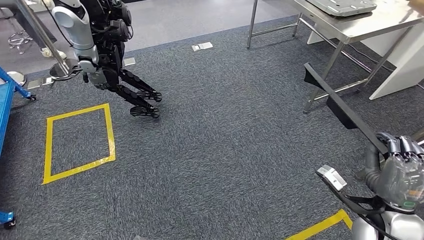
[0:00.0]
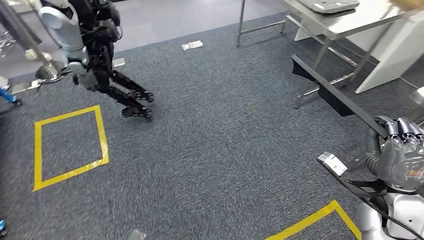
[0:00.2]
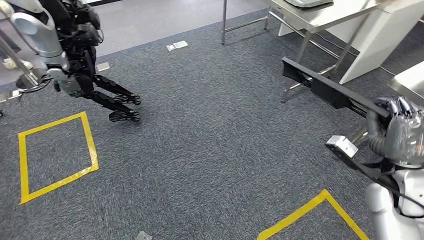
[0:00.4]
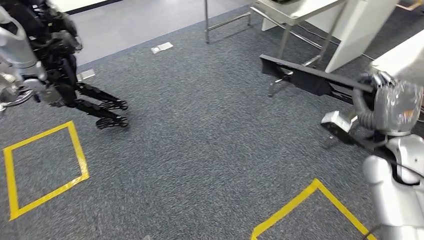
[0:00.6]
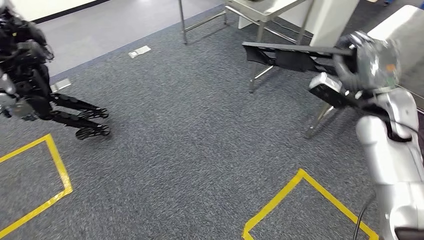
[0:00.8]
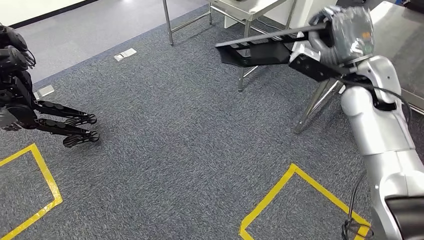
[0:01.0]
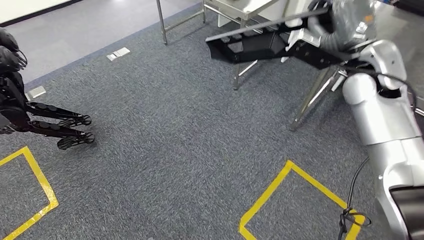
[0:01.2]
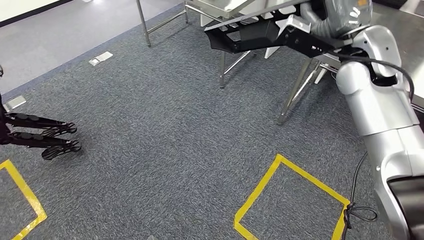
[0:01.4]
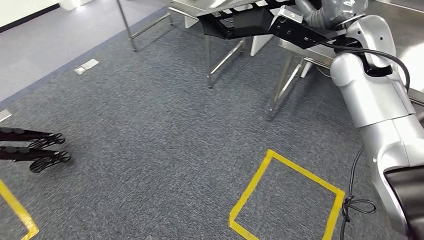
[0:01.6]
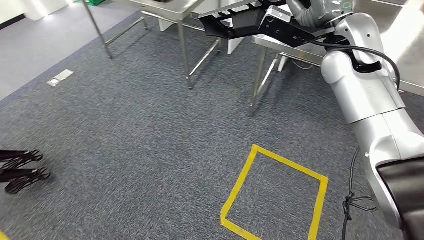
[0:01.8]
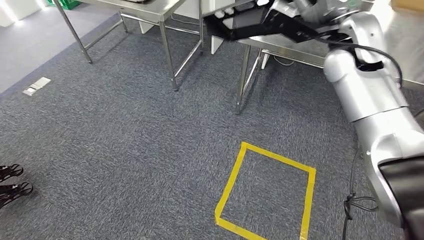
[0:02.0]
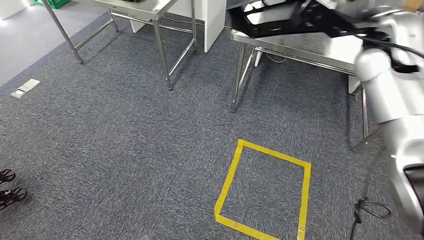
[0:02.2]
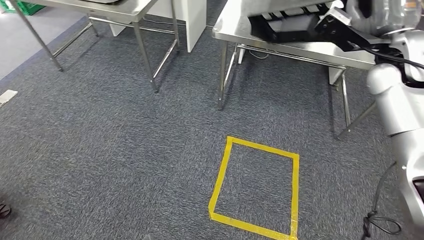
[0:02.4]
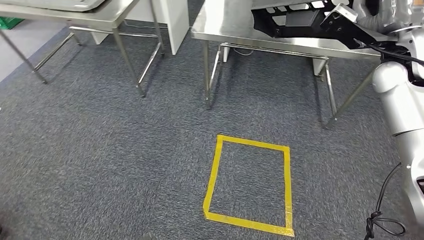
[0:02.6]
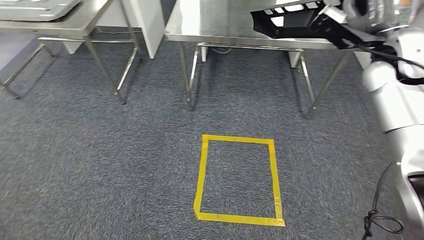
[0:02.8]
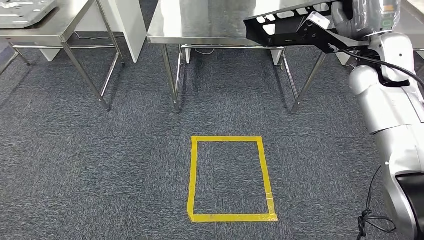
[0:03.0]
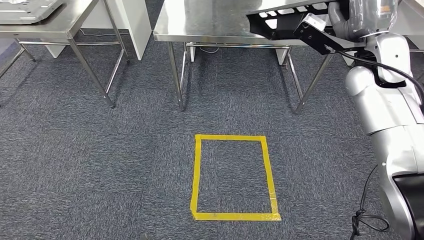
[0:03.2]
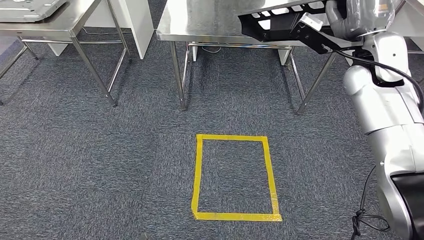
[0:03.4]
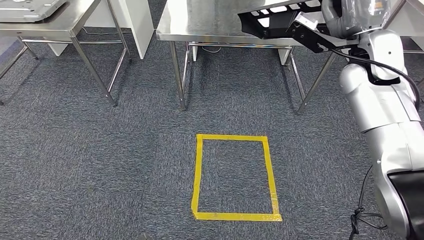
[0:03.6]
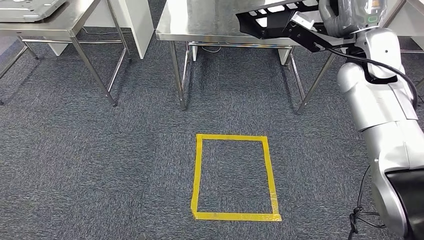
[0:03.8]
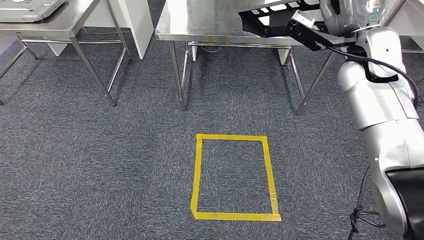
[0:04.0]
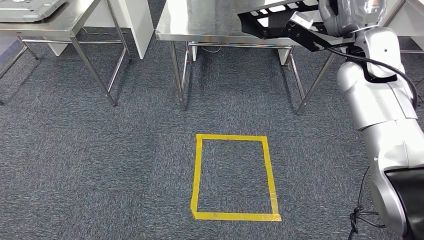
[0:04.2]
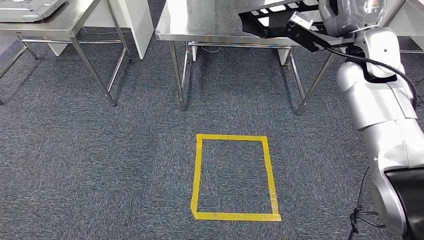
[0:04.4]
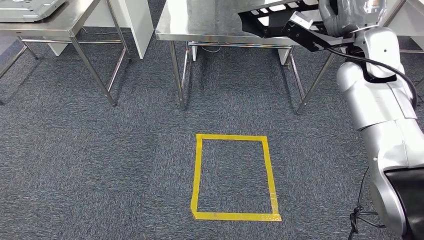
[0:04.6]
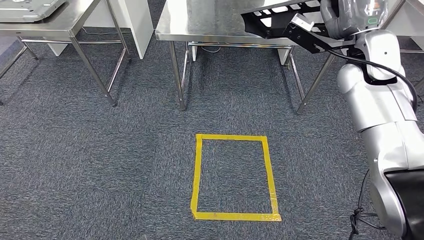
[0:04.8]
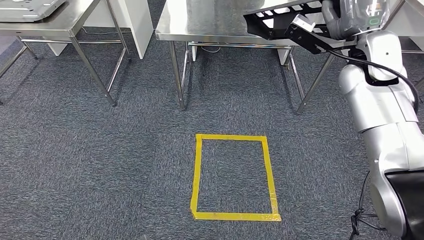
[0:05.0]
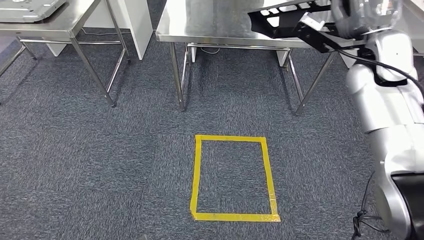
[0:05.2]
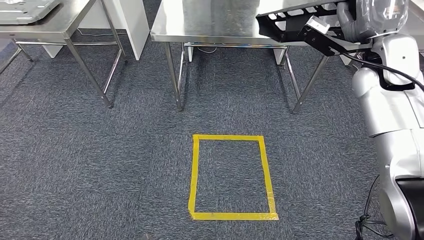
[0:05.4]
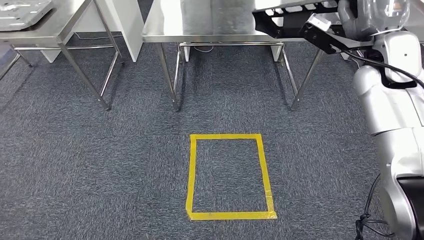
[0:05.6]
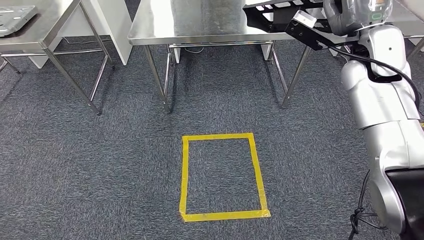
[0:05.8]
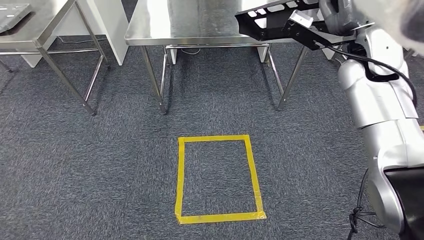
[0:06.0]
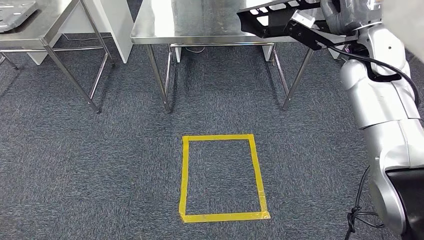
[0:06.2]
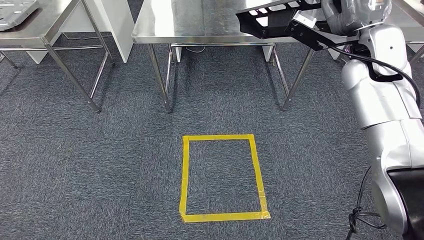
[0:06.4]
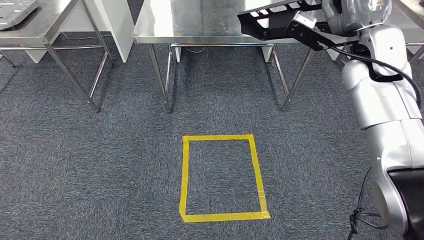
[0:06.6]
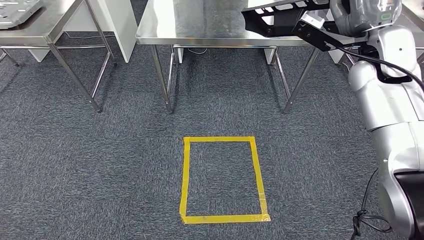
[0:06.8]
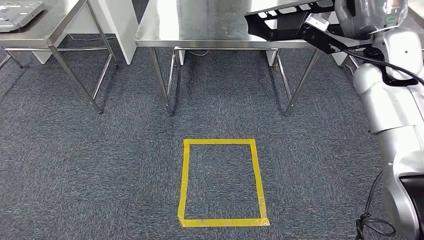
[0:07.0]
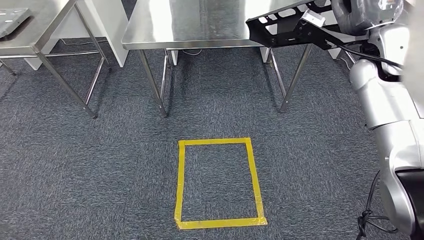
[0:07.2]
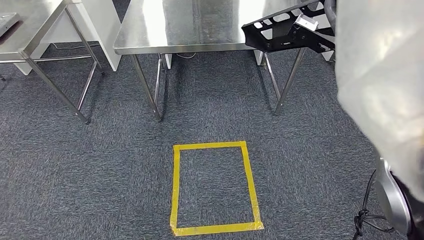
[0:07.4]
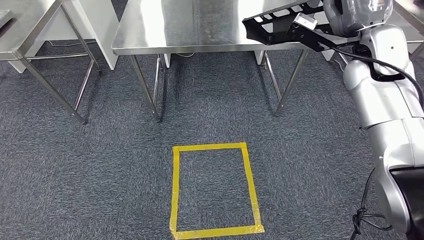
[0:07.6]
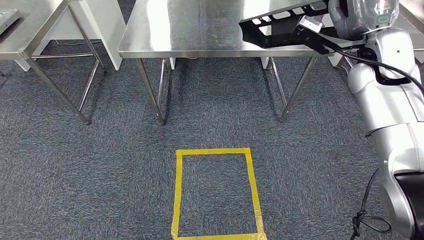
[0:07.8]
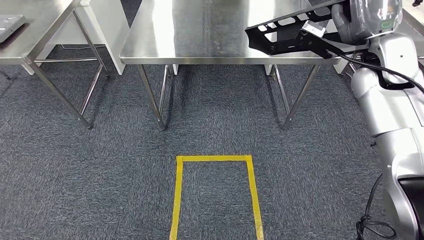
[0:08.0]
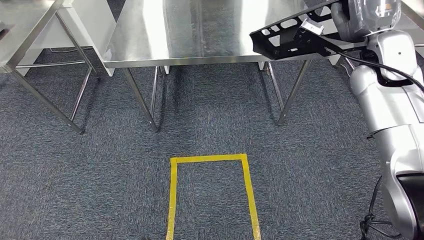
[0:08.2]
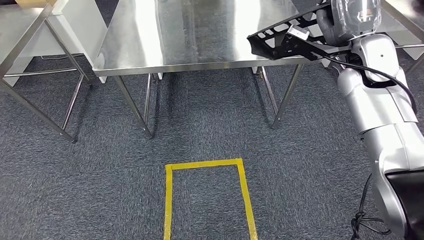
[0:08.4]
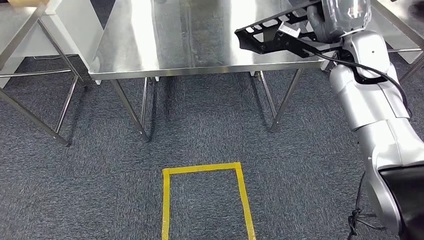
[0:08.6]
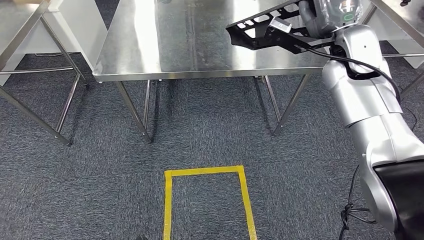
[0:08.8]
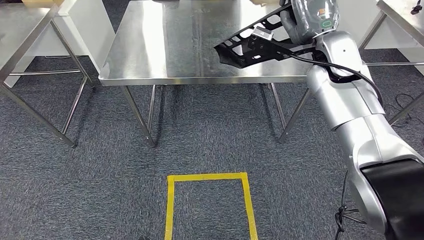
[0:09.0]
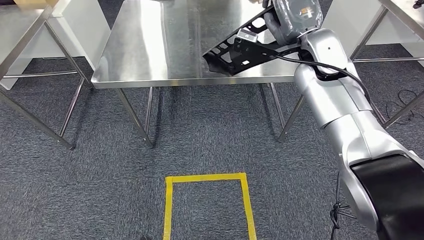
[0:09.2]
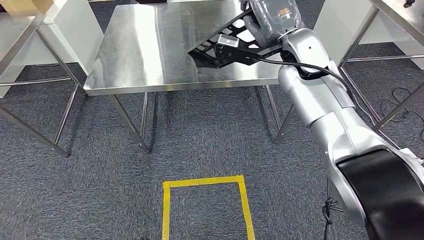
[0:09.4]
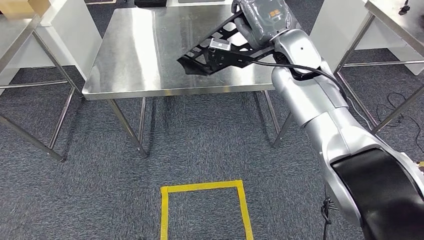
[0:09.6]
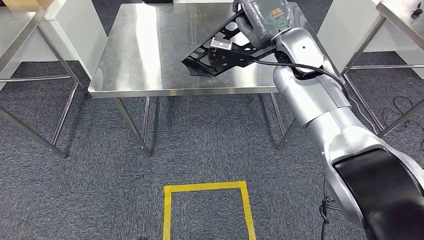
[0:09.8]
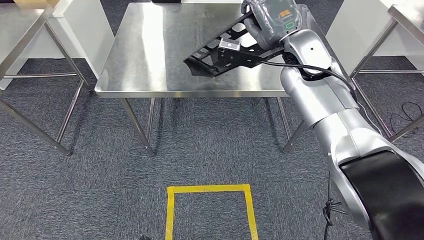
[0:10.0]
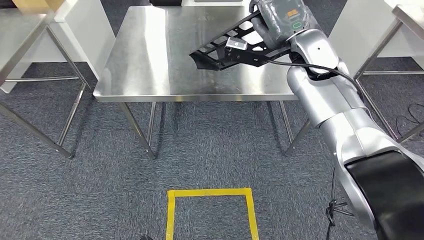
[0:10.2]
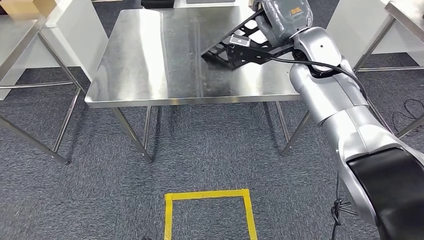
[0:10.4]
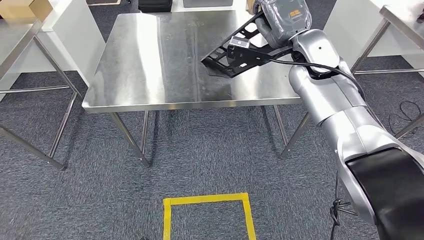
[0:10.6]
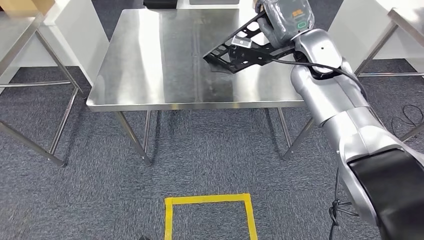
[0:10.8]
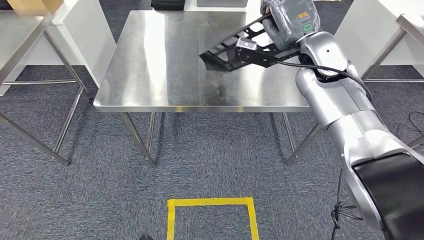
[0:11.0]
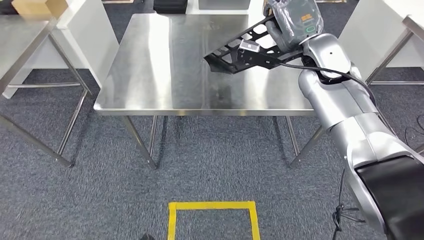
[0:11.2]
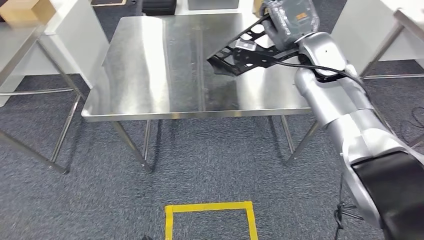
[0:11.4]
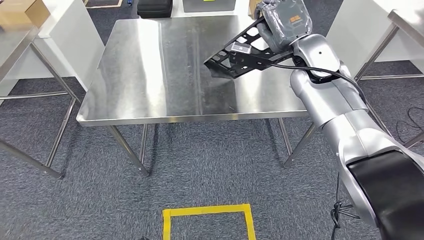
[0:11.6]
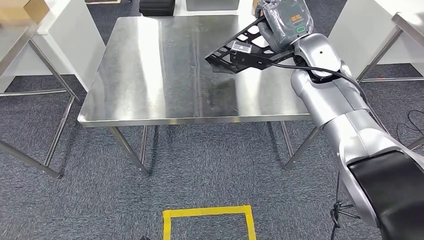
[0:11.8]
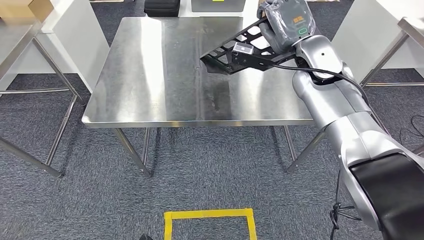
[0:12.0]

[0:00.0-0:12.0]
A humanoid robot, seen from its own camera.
Step, 0:00.0 to 0:02.8: Move the large material to the front of the workbench.

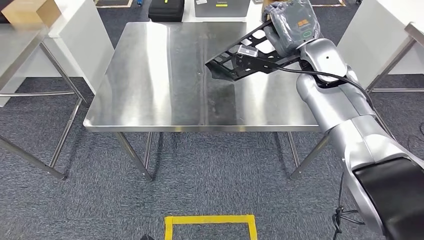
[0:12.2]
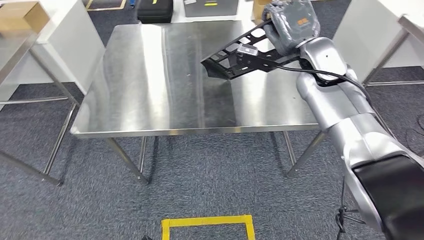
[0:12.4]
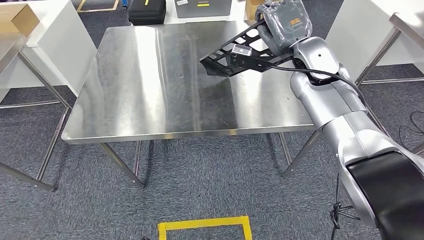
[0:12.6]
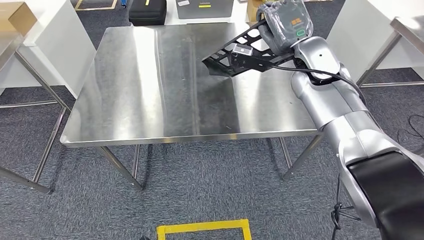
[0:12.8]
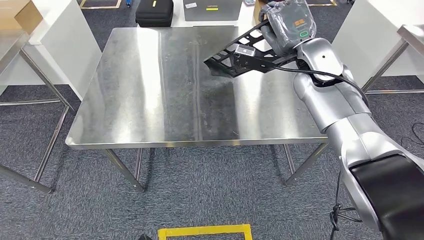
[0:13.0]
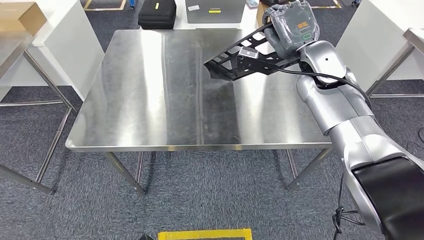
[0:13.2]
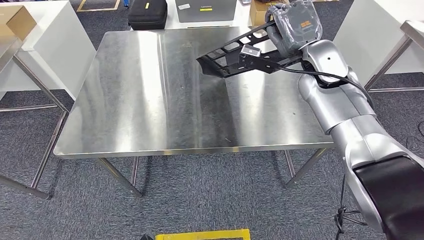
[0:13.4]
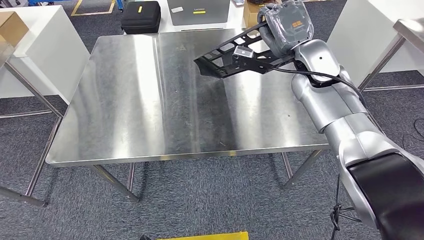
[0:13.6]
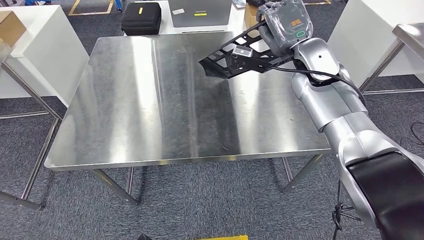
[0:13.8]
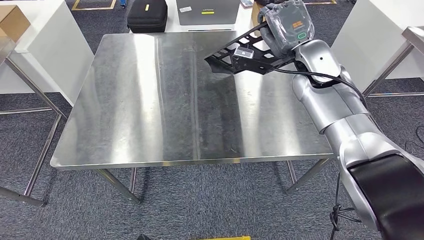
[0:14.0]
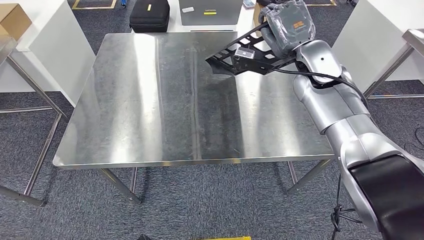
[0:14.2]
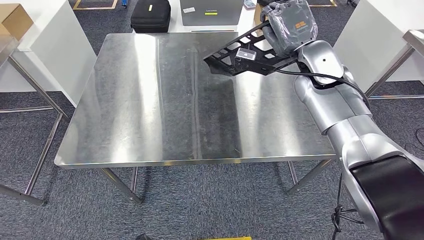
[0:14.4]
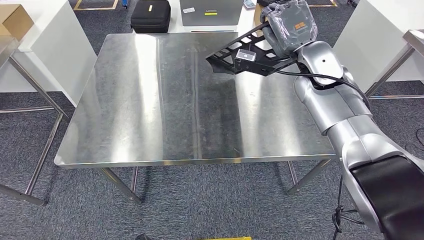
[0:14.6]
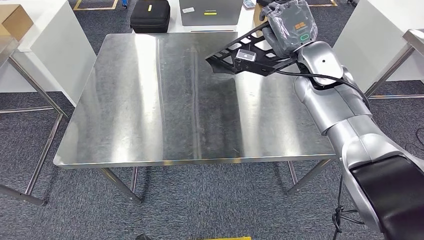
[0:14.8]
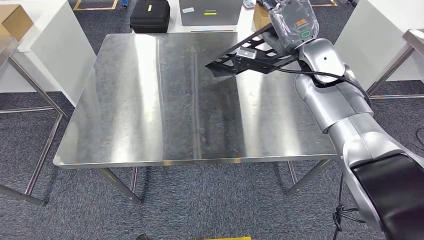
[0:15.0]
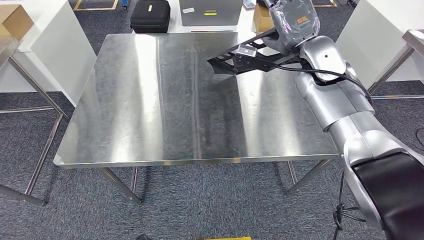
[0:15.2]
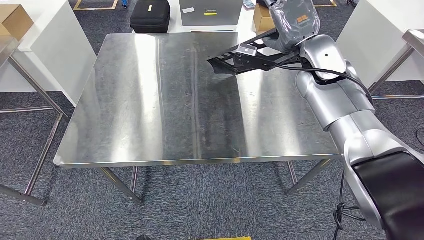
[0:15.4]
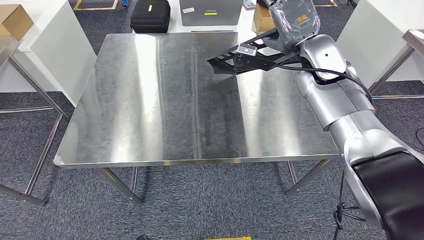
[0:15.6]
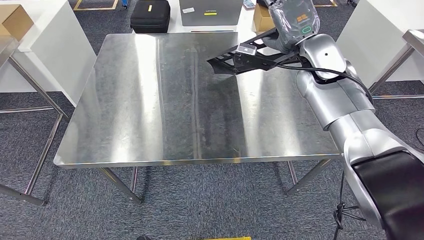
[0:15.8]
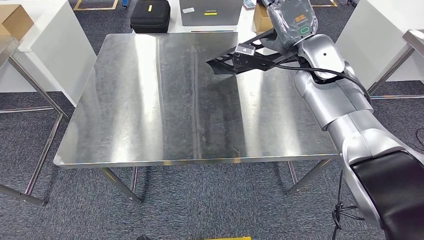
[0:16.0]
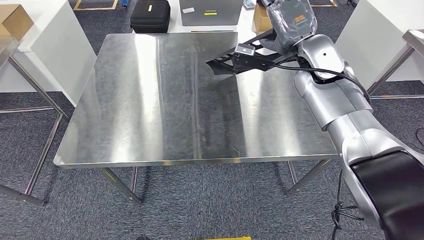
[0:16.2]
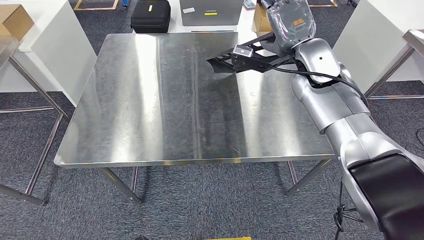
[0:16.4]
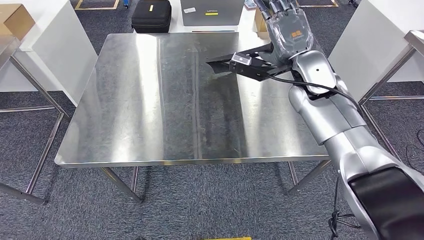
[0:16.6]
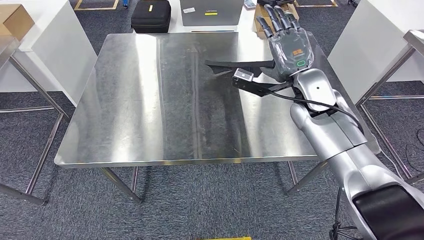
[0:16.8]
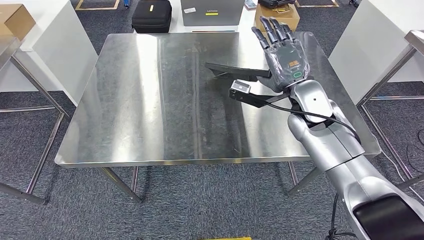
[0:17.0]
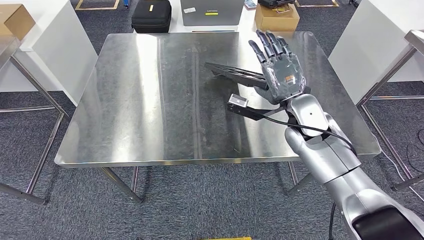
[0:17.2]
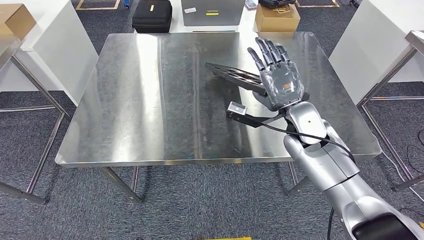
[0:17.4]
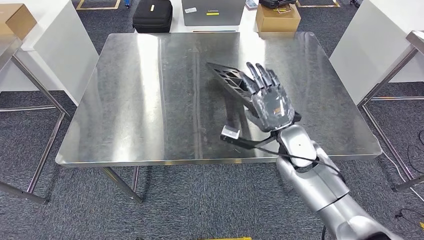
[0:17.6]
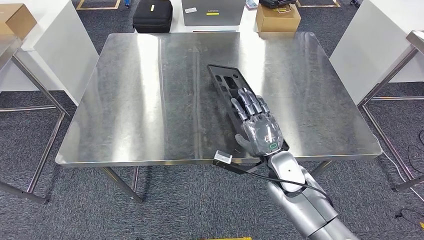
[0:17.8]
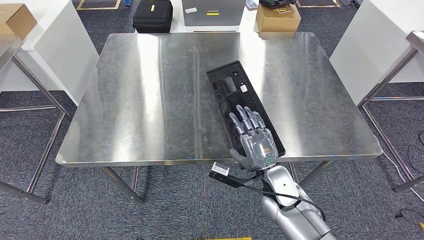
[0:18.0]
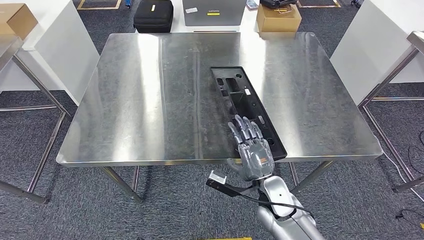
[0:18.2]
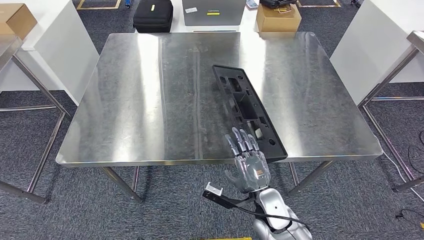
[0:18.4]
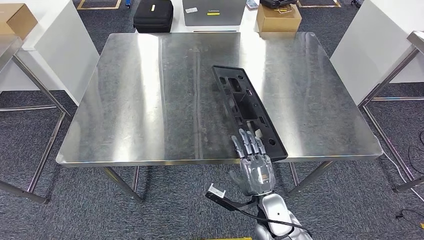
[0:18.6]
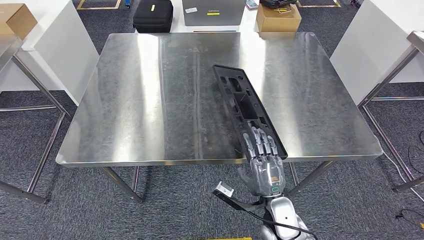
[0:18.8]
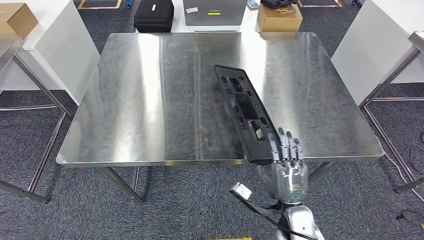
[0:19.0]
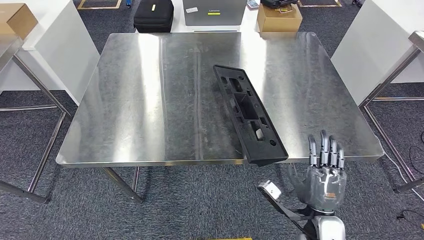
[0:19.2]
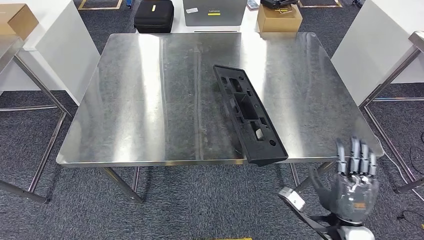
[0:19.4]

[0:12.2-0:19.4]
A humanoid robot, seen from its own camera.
0:15.0 to 0:16.6: The hands make only small movements.
0:18.0 to 0:19.4: The right hand goes about 15 cm to the right and backward.
